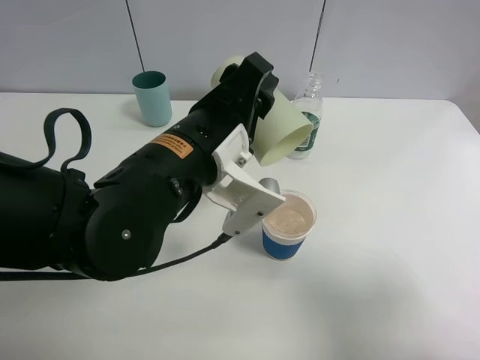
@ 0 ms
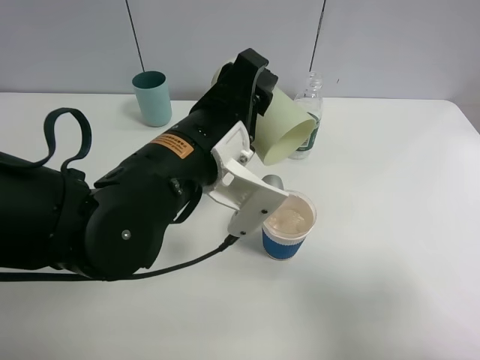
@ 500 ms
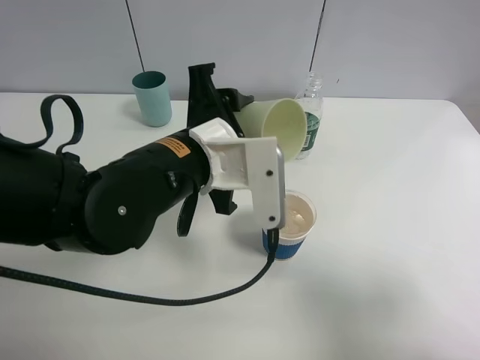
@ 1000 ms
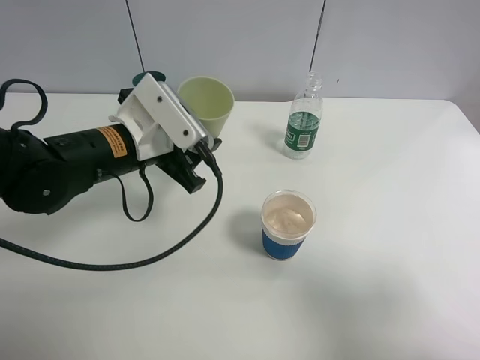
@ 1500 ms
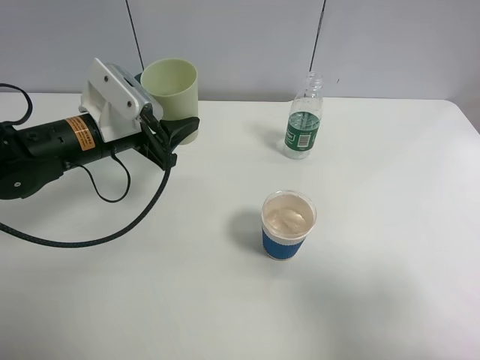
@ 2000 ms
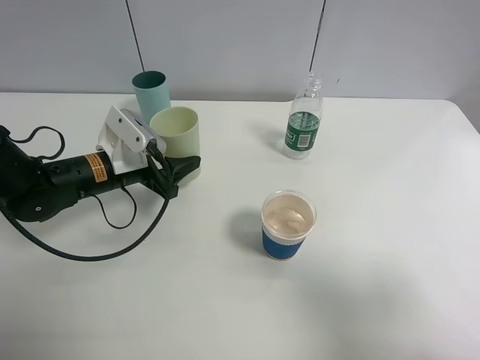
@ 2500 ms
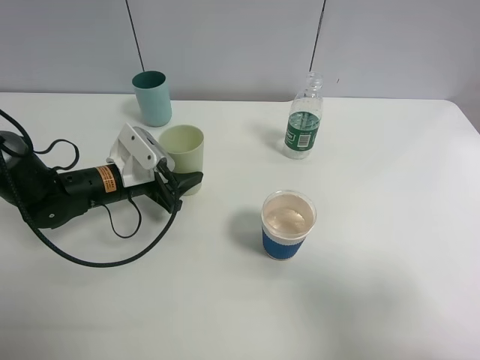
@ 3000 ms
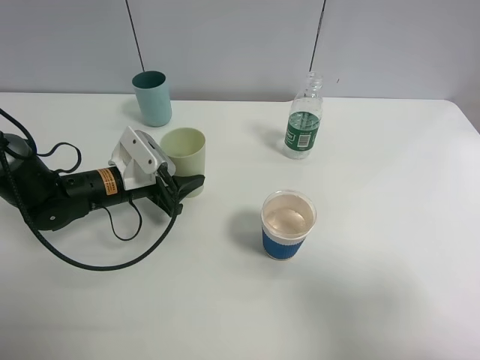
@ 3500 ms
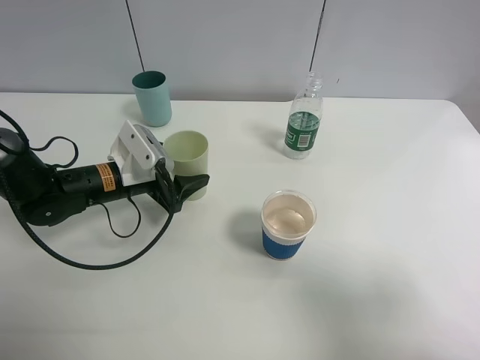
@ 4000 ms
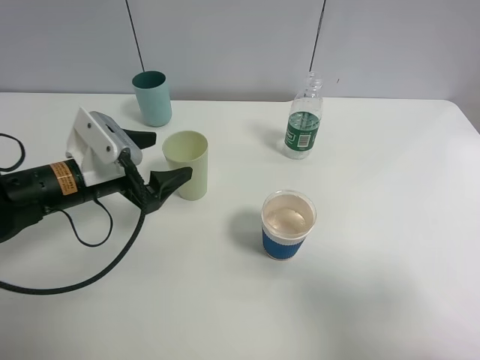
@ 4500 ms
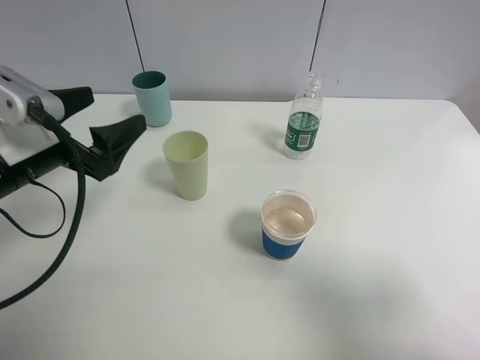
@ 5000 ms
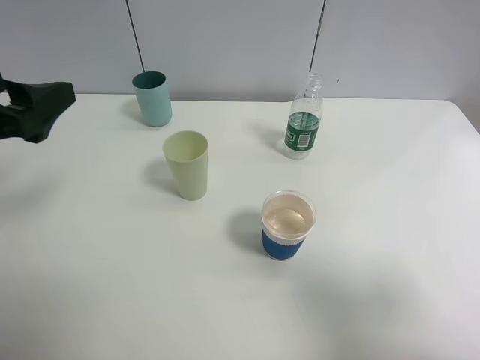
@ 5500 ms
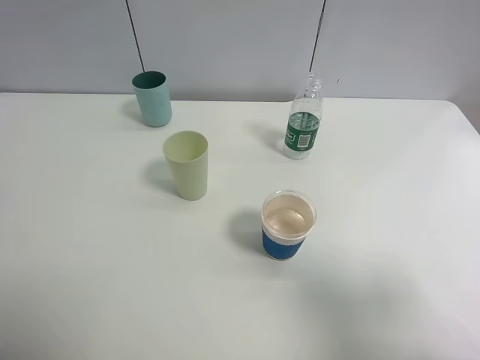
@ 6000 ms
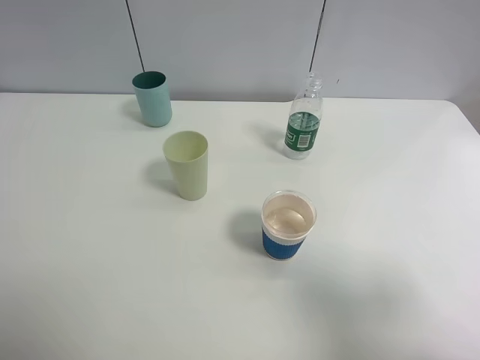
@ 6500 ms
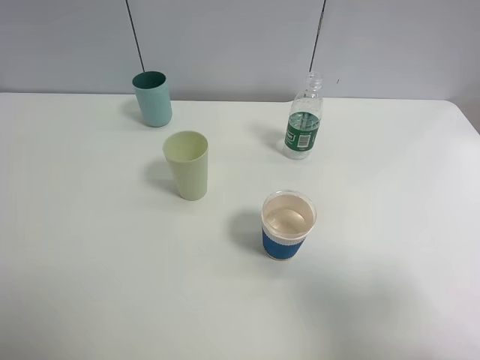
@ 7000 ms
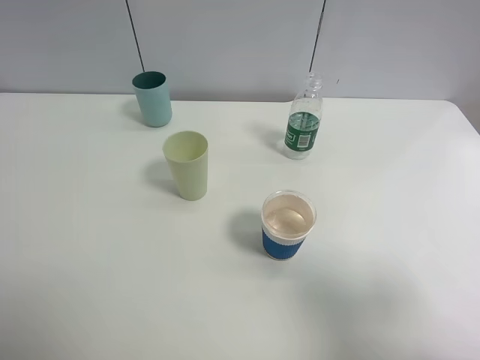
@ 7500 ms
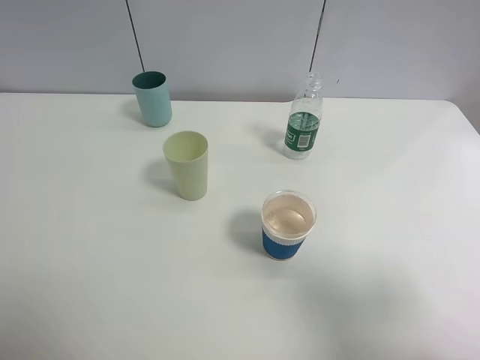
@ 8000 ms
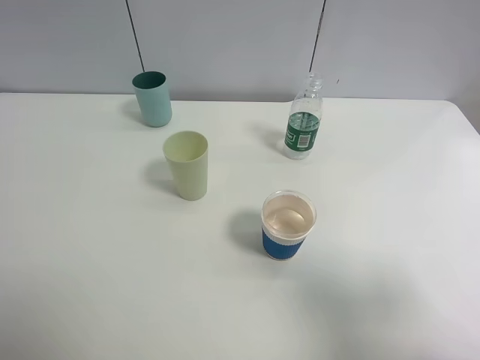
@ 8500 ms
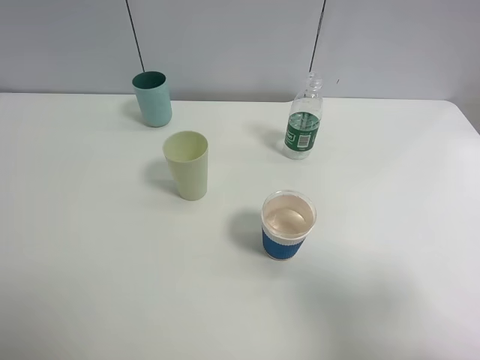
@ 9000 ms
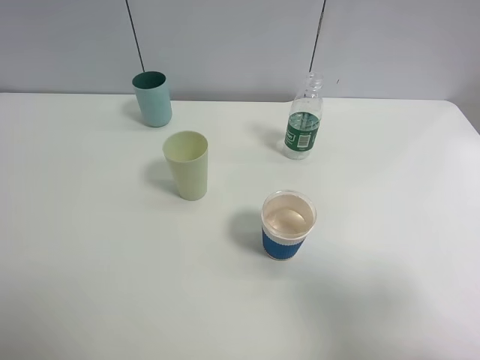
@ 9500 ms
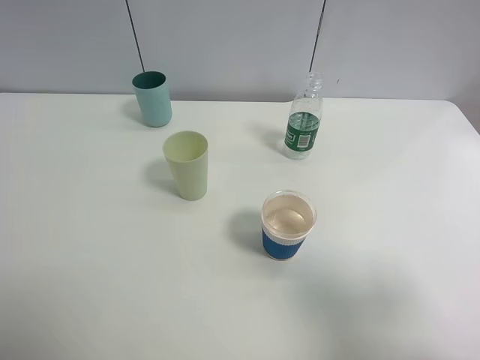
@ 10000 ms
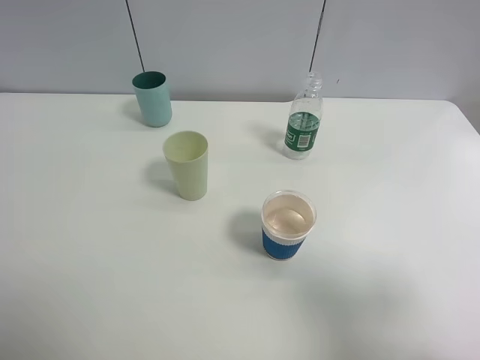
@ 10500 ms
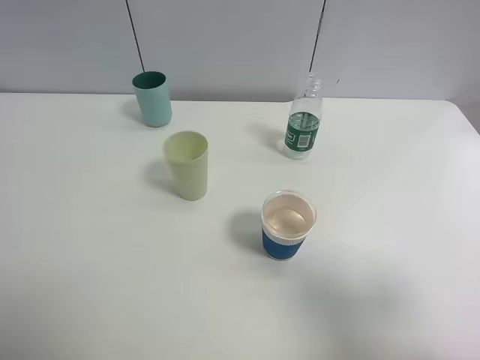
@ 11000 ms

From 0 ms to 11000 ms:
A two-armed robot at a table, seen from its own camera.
Task of the whole recording: use a clamp to hold the bottle of the drink, pour the beverage into a random cup, then clamp the cup containing the drink and pour the drink into another random cup.
Step, from 1000 ms to 4000 ms: Place the green plastic cup on the table with left gripper.
From 0 ms to 2000 ms: The left gripper moves to the left, forward and downward, roughly 20 cm.
From 2000 ms to 3500 ms: The left gripper shifts some 10 cm downward.
From 3500 ms to 5500 ms: The left gripper travels upward, backward and to the left by roughly 25 cm, and opens its fingers.
From 5500 ms to 7500 ms: The left gripper is displaced backward by roughly 20 cm.
From 9000 ms to 11000 ms: Both grippers stay put.

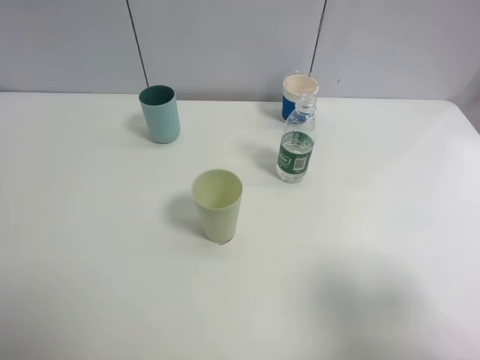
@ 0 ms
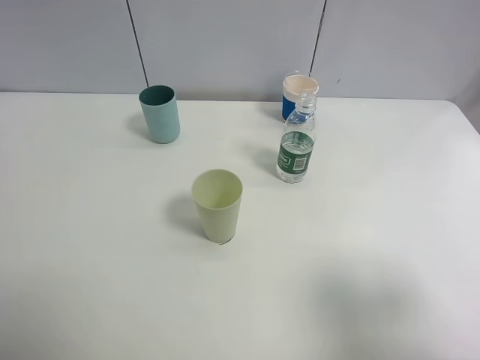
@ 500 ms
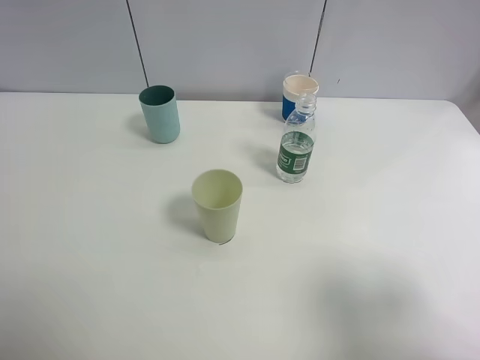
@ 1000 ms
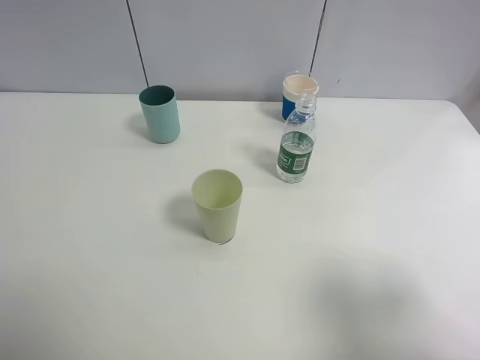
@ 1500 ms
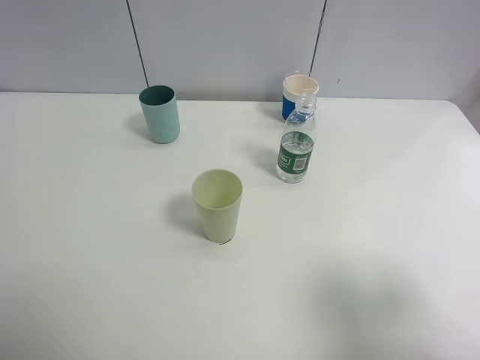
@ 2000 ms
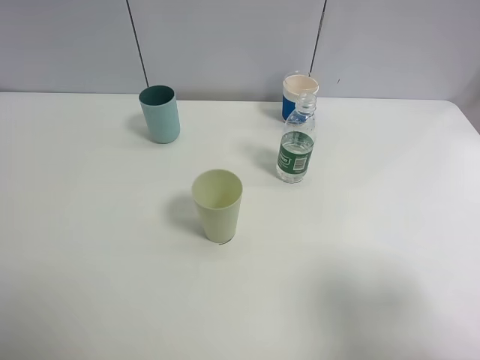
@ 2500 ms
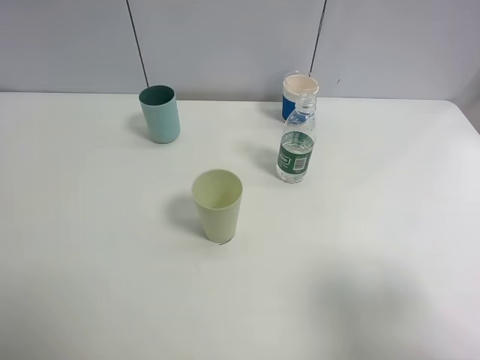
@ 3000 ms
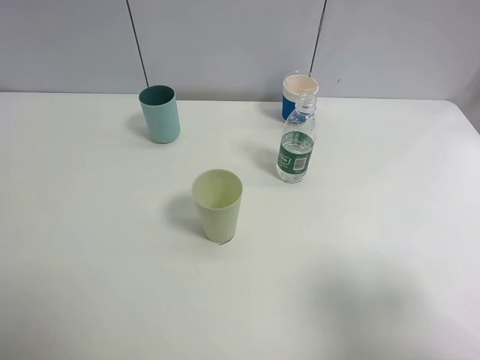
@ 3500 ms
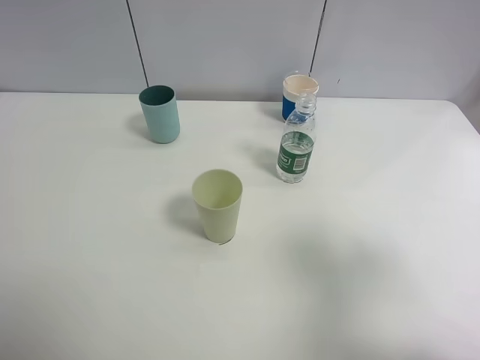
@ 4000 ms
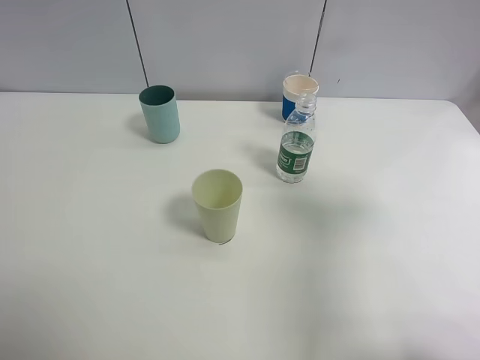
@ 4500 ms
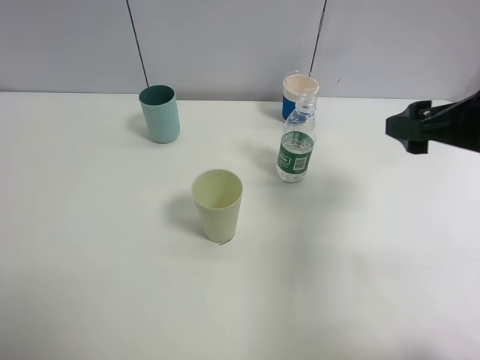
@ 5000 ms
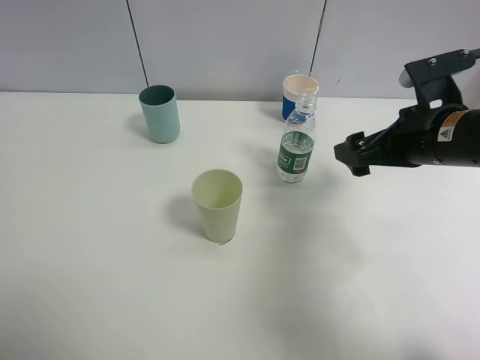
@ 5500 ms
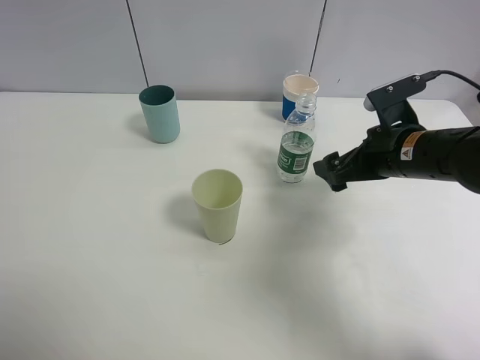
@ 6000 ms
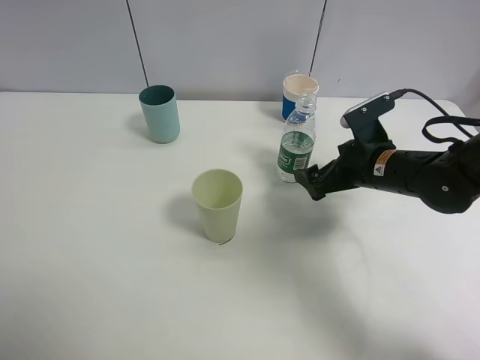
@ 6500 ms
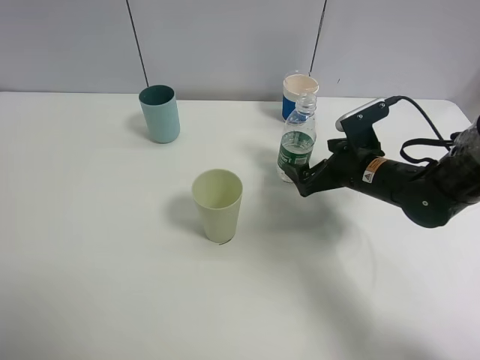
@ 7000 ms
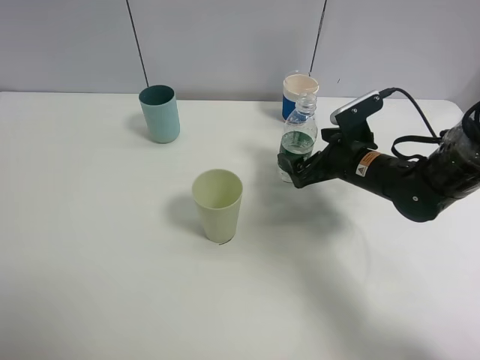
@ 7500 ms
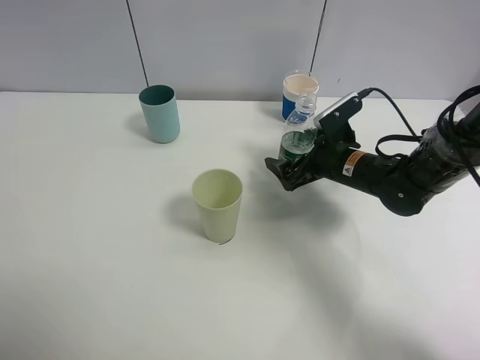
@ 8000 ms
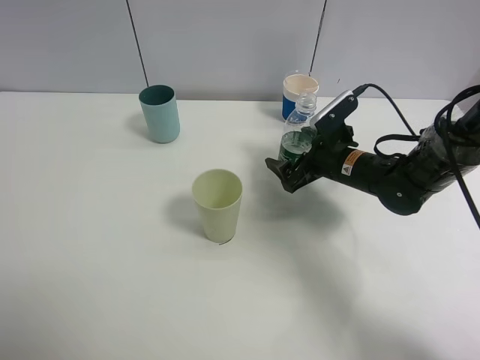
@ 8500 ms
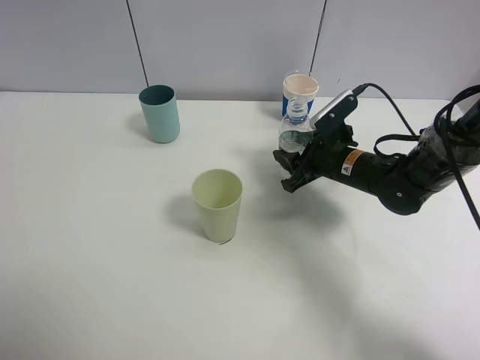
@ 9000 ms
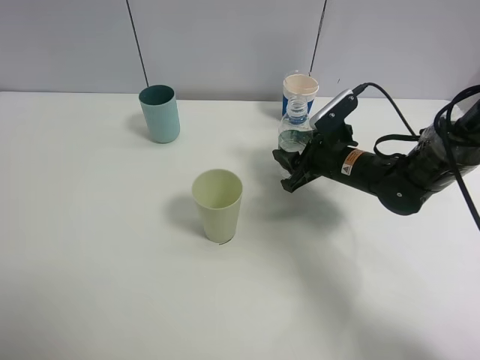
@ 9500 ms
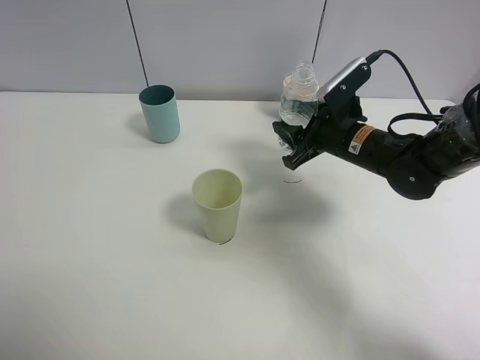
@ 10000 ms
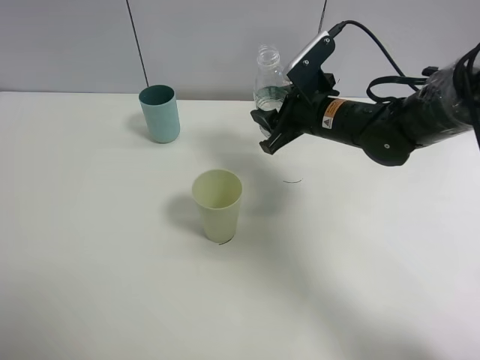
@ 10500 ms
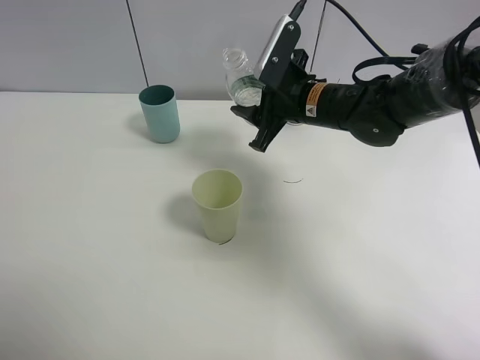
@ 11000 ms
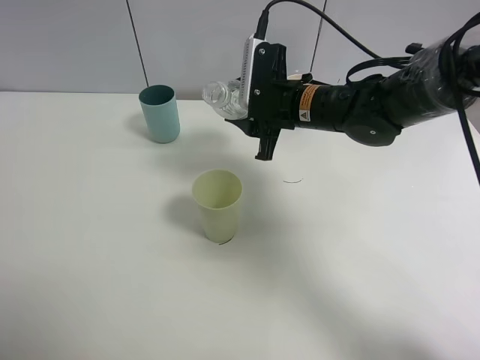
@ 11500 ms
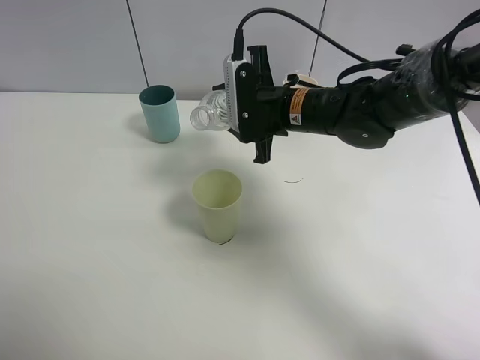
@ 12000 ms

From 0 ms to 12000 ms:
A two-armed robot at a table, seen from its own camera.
Task of the whole recording: use a clamp to hold the bottle of the drink, pour the beverage into a random cup, then clamp the cup containing the drink and pour the drink into another random cup.
Step, from 0 ms to 9500 ms: Pick up the water bottle with right gripper.
From 0 ms to 2000 ms: Neither gripper changes place.
From 2000 ms to 4000 ms: The right gripper moves forward, about 5 cm.
From 4000 ms to 6000 ms: The right gripper is displaced forward, downward and to the left by approximately 30 cm.
From 6000 ms to 8000 ms: The right gripper travels downward and forward by approximately 10 cm.
From 8000 ms to 10000 ms: The right gripper closes.
From 10000 ms to 12000 ms: The right gripper moves to the left, roughly 10 cm.

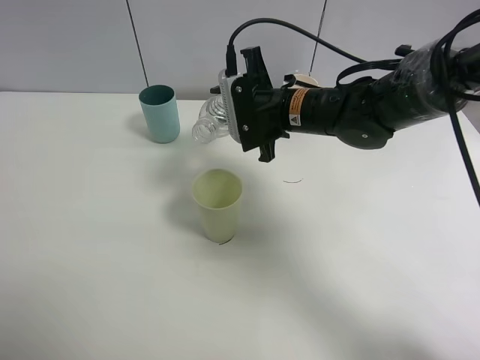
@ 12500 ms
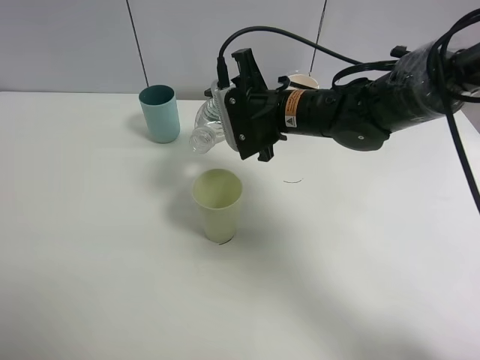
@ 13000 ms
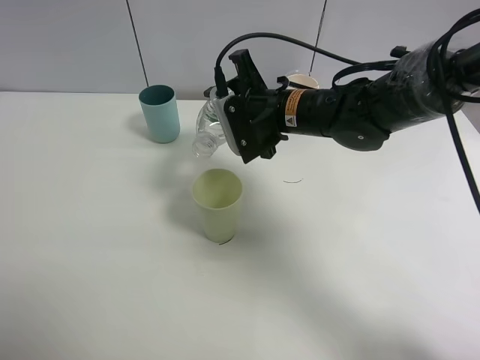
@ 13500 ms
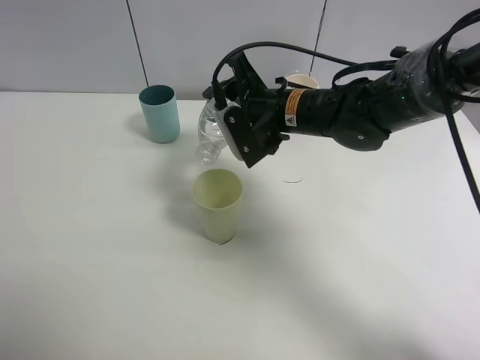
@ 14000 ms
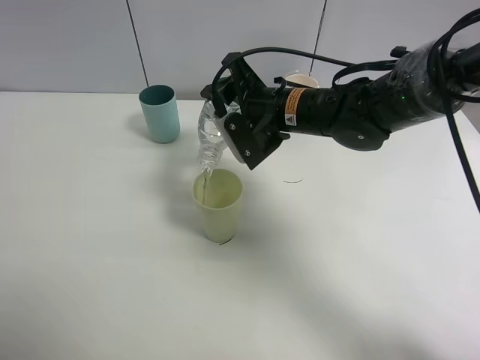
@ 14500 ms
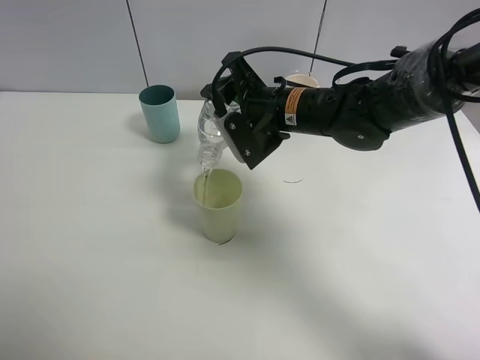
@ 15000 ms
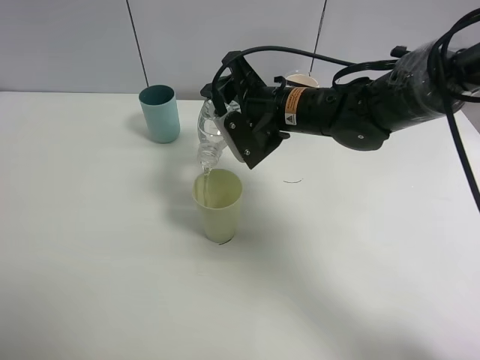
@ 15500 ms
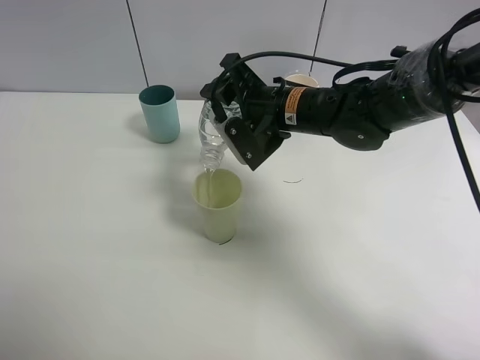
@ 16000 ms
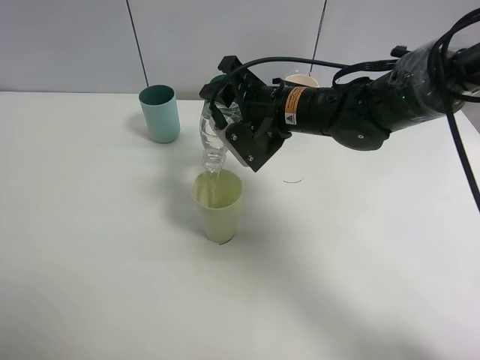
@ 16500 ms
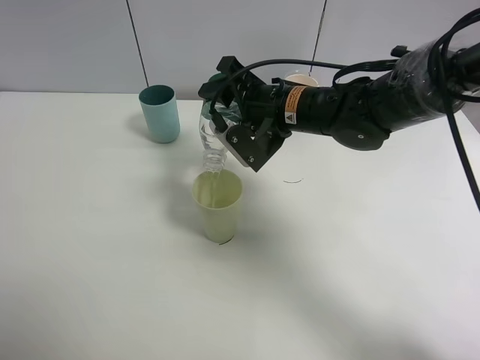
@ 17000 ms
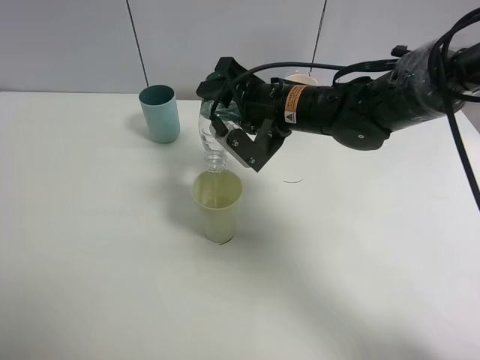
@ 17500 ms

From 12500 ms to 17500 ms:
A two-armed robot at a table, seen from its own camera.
Task of the whole recording: use a clamp to hold the bottle of the drink, pour the beverage into a random cup, then clamp the cup containing the drink and pour the drink into another random cup.
From 15000 ms to 17500 ms: The grippers move only a little.
